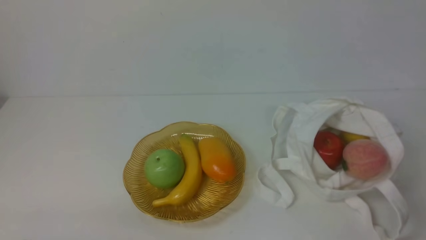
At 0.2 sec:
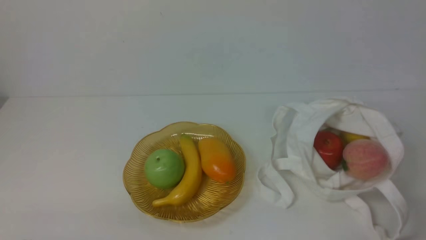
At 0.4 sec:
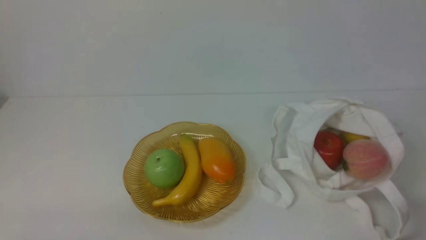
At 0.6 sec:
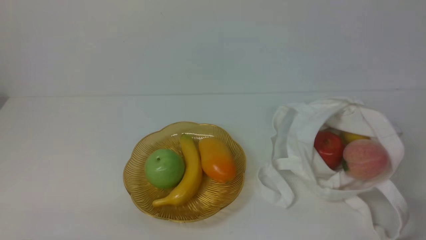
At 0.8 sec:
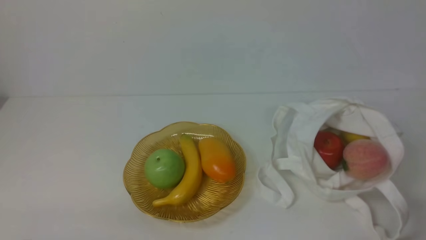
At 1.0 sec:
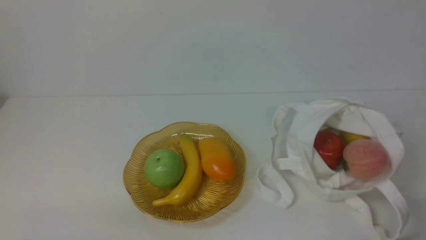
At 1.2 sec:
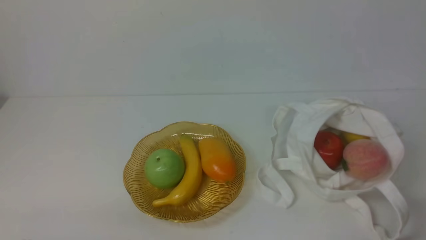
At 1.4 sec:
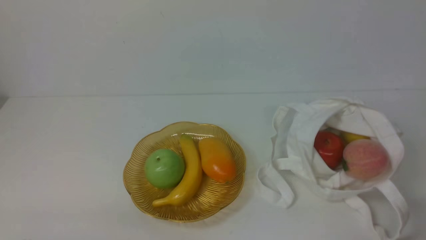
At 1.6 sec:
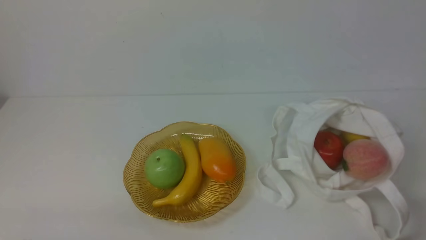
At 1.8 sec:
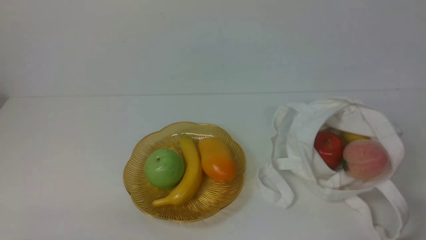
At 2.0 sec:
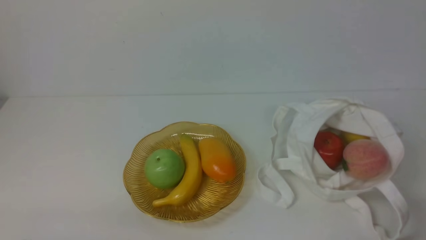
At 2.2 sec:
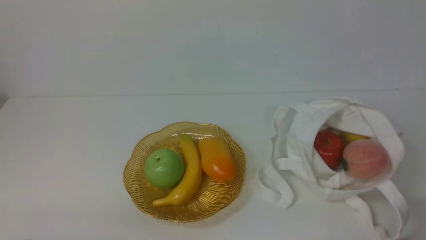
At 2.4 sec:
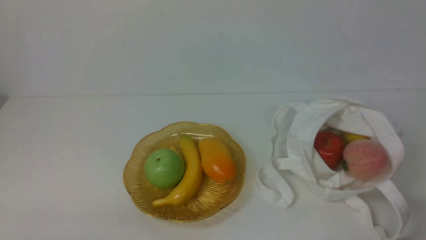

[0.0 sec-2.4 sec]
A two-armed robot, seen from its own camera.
1.2 sec to 2.4 sec: Both grippers stay put.

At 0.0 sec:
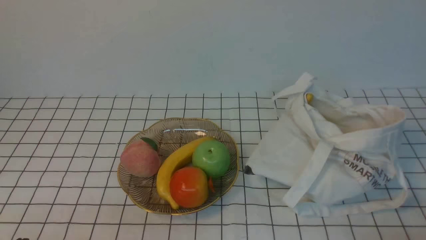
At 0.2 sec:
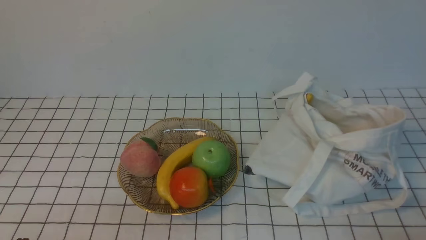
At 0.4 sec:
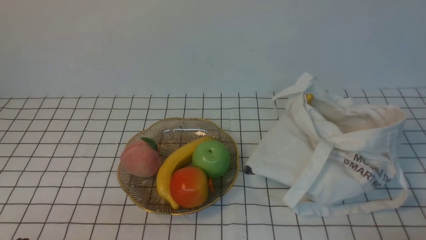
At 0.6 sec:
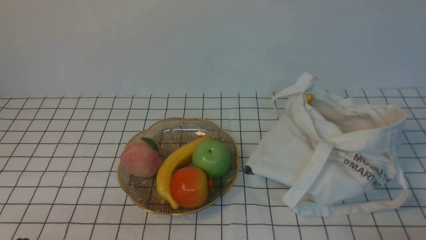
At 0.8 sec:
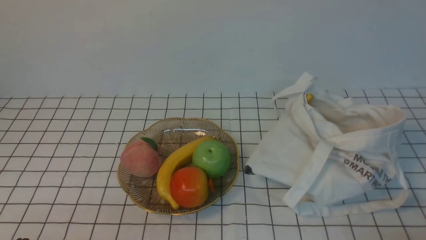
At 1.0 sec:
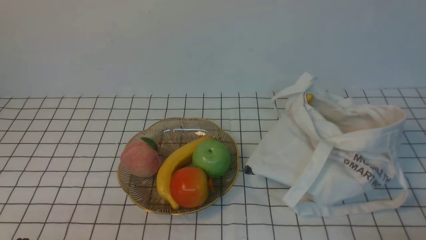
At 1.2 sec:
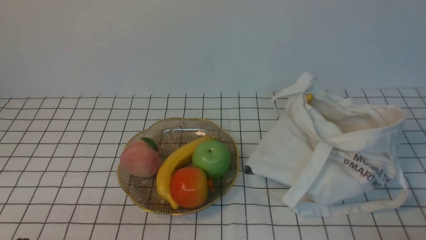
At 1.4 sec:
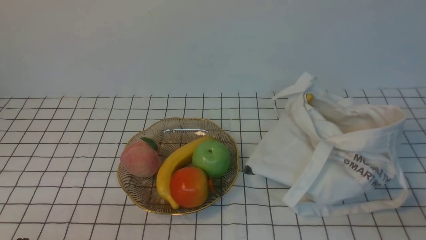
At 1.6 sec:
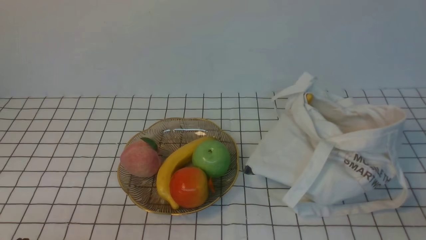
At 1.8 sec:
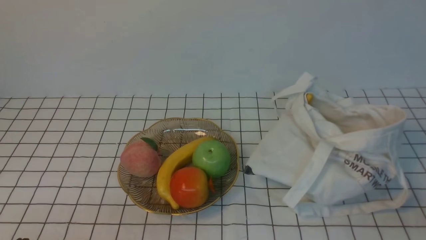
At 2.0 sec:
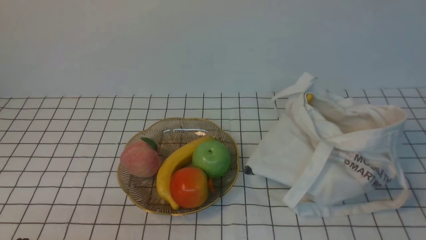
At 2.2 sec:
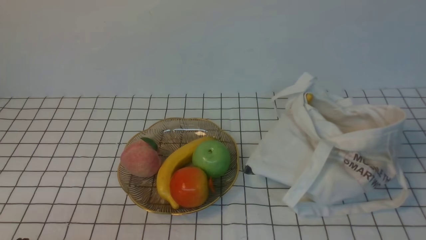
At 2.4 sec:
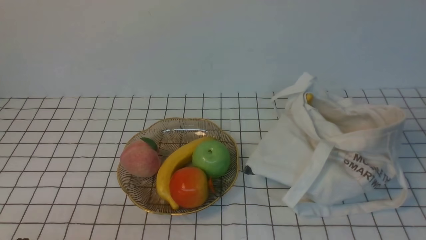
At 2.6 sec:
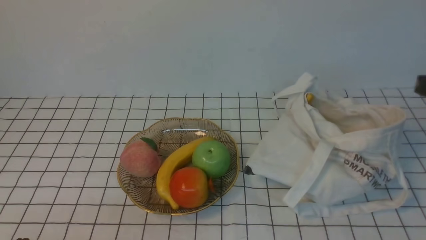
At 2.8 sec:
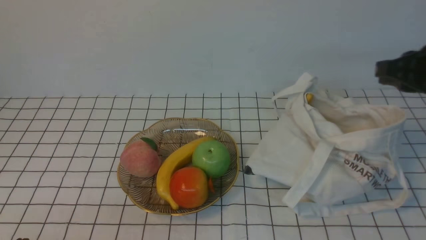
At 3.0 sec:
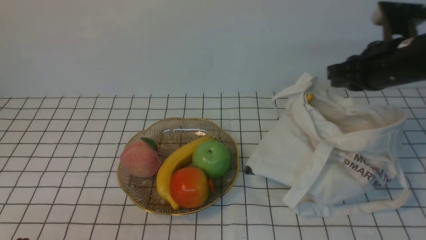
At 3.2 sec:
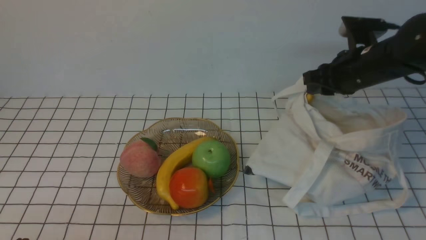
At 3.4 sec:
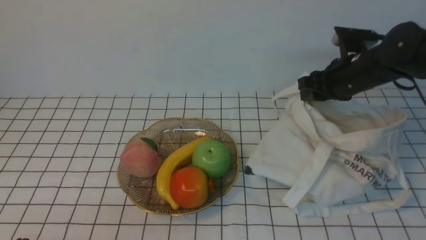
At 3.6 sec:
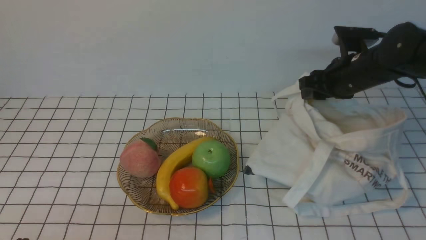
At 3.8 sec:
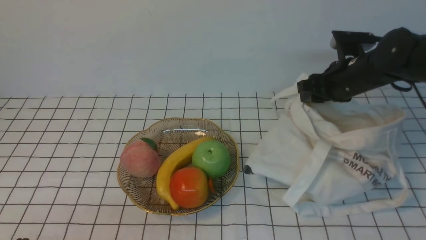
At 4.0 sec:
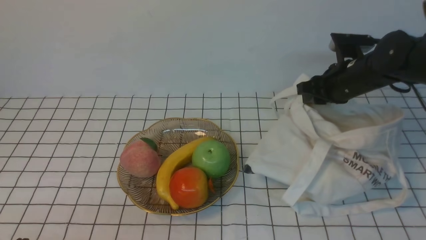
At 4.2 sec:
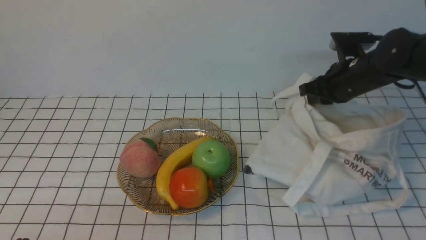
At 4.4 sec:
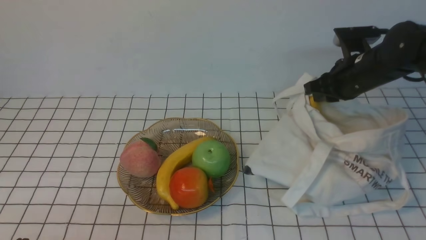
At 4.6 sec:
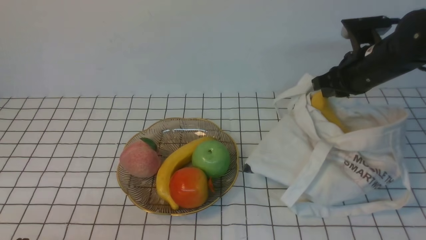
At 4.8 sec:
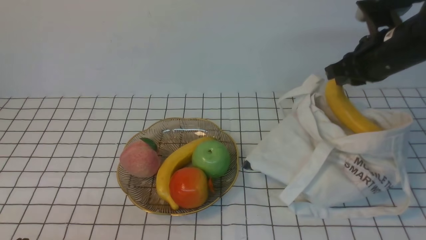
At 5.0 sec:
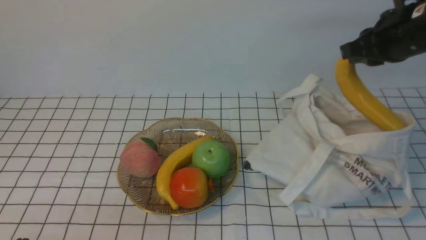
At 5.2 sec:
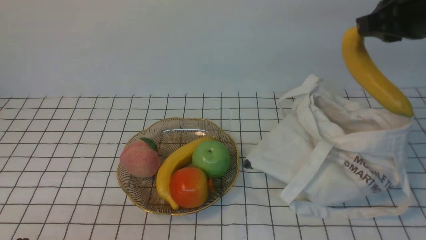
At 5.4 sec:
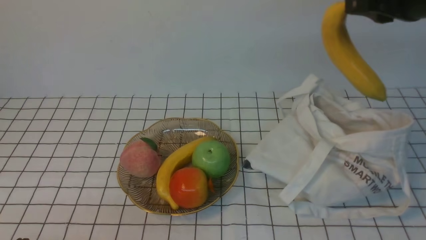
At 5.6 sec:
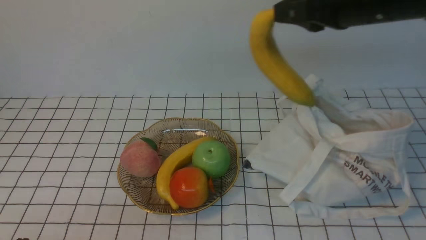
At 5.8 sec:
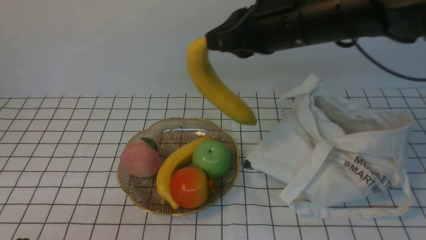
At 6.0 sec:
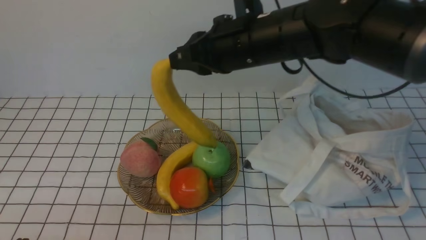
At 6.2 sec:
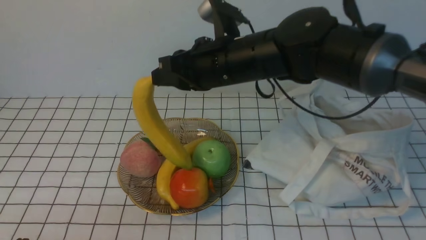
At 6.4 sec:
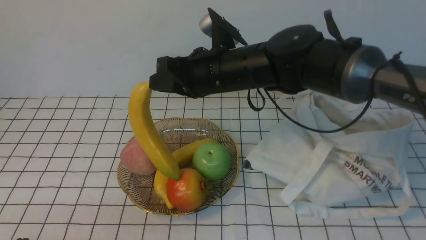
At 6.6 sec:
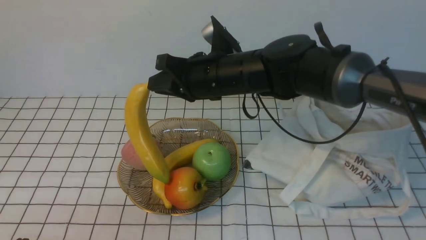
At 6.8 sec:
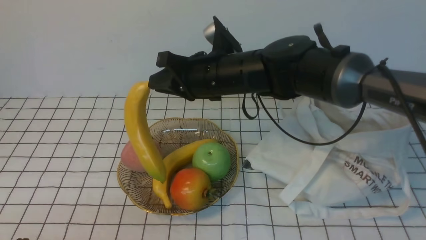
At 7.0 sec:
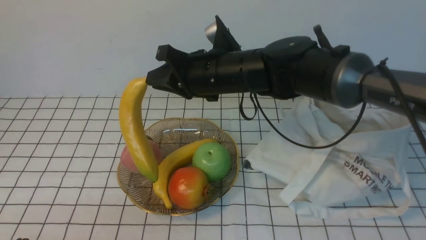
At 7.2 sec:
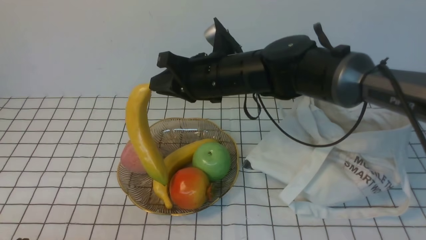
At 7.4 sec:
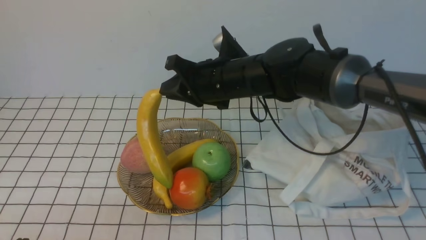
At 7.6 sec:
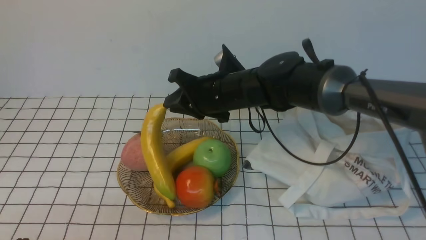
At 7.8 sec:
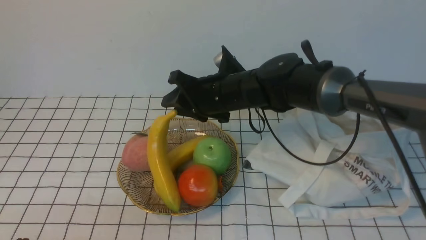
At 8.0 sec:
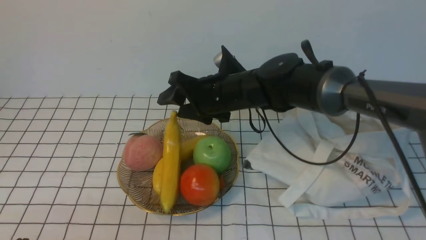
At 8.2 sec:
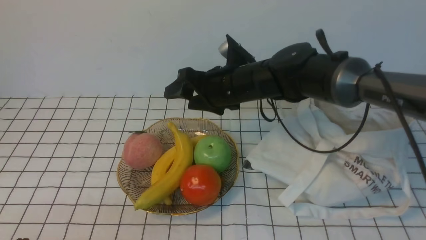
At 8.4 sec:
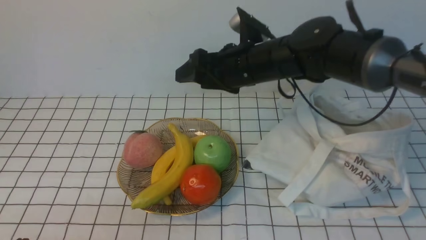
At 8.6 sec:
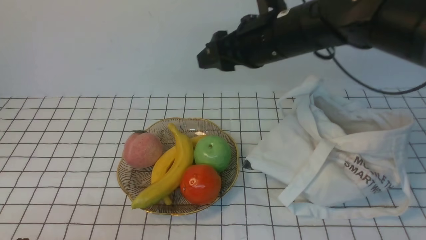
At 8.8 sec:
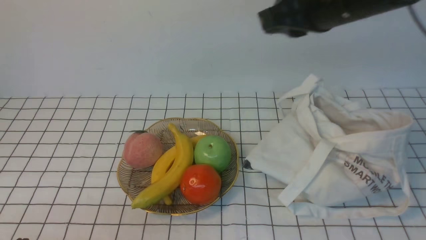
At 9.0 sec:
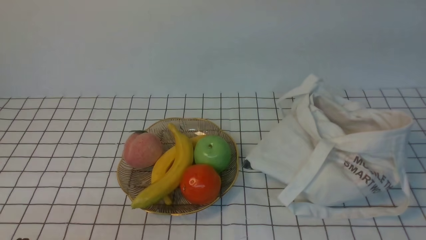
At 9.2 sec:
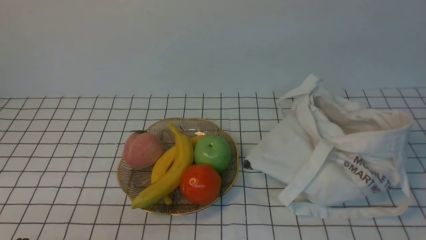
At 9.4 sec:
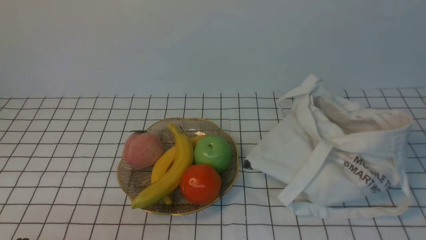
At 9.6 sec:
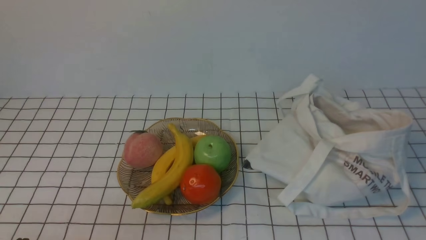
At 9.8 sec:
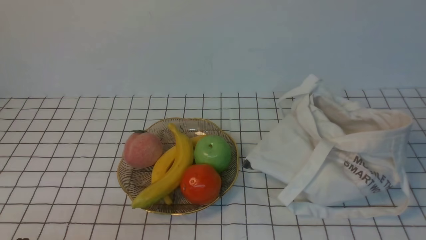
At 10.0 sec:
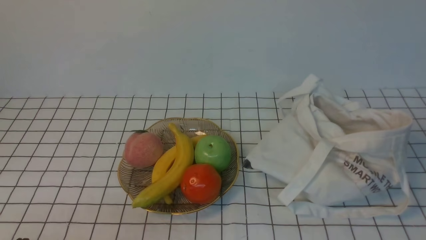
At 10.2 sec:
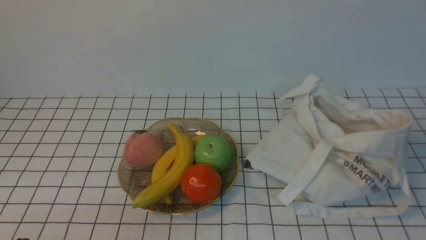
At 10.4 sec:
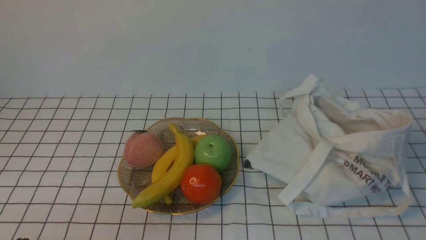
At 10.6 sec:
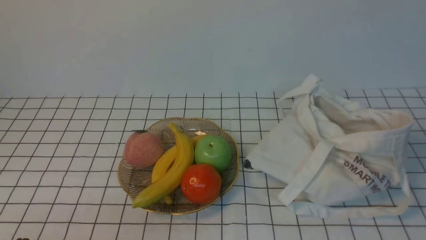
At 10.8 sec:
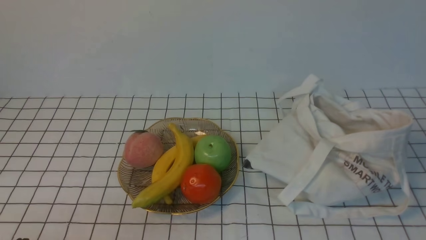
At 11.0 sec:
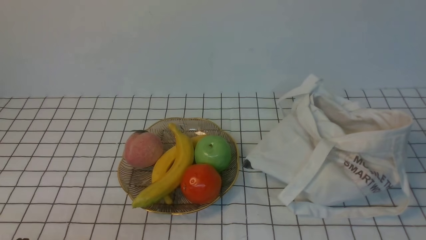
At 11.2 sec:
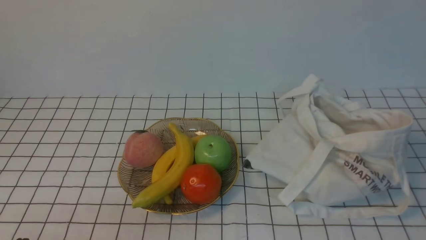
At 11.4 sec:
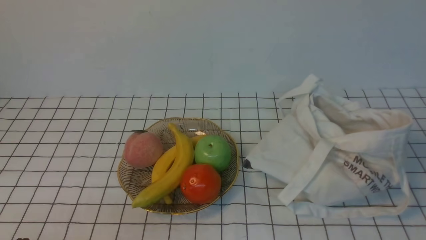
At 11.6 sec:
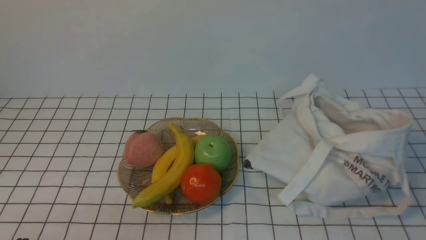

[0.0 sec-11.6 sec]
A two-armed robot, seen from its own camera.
Step, 0.0 sec to 4.4 sec: use the right arm to grab a banana from the bag.
Step, 4.6 sec to 8.0 sec: use the right arm to put the banana into the empty plate on the right.
1.4 sec to 2.8 sec: The right gripper moves forward and upward, some 25 cm.
2.8 sec to 4.4 sec: The right gripper goes about 15 cm forward and downward, and opens, then closes again.
4.4 sec to 5.8 sec: The right gripper shifts approximately 20 cm upward, to the left and backward.
5.8 sec to 7.2 sec: The right gripper heads to the left, downward and forward, covering some 15 cm.
7.2 sec to 8.8 sec: The right gripper moves upward and to the right, roughly 15 cm, and opens, then closes again.
8.8 sec to 10.2 sec: The right gripper is displaced backward and to the right by some 40 cm, and closes.

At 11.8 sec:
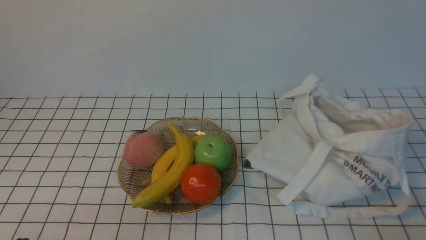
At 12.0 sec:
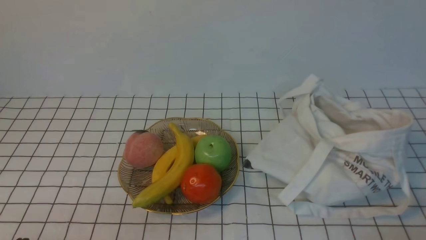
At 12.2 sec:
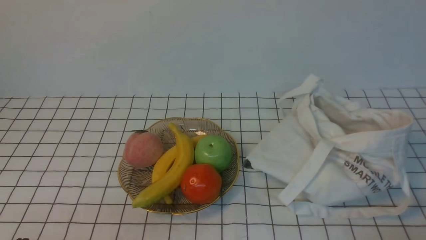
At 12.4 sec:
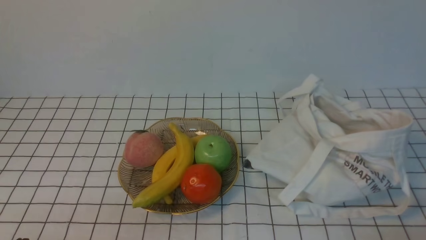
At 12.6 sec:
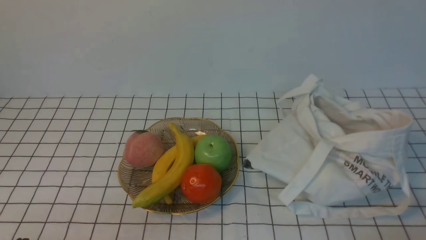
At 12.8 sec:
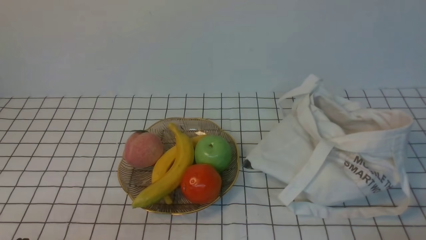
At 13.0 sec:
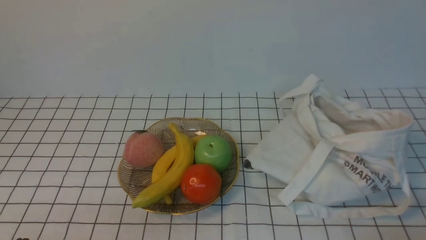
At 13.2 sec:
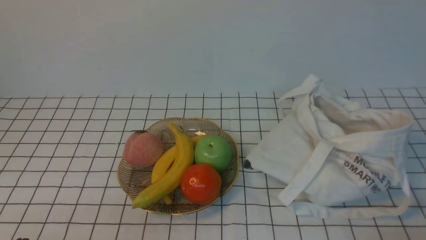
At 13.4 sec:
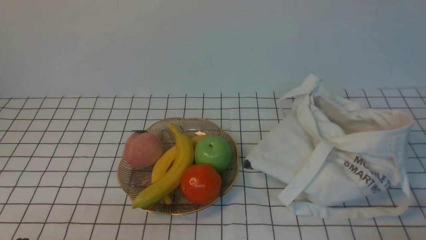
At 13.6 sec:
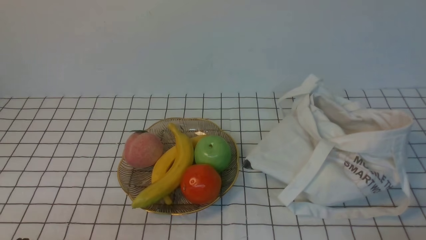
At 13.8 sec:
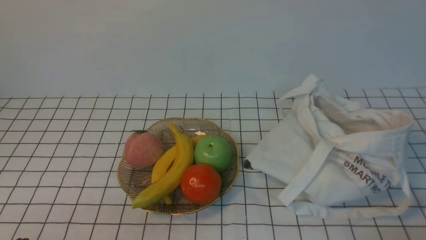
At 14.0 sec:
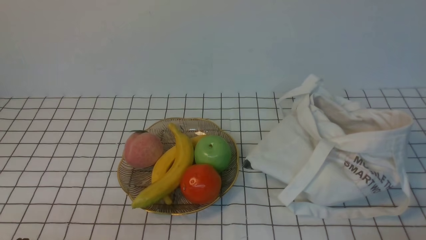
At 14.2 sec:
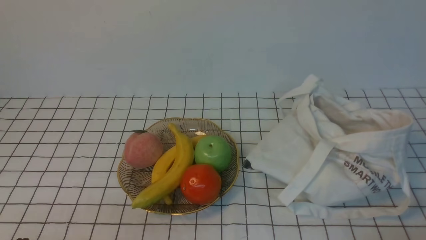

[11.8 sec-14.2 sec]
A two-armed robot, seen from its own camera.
13.0 sec to 14.2 sec: Both grippers stay about where they are.
